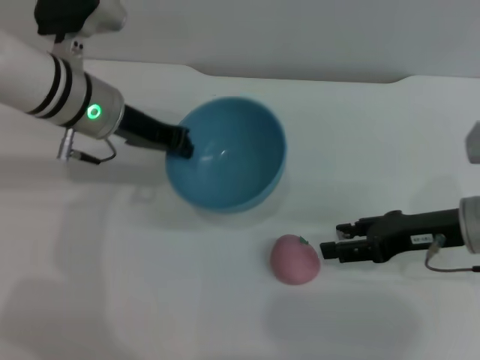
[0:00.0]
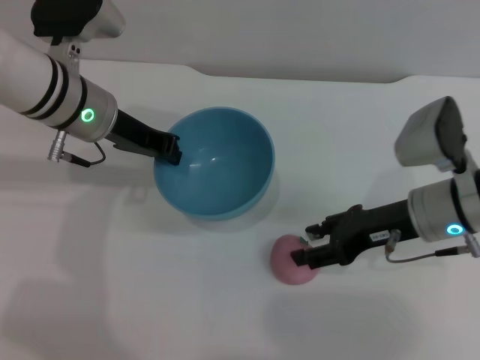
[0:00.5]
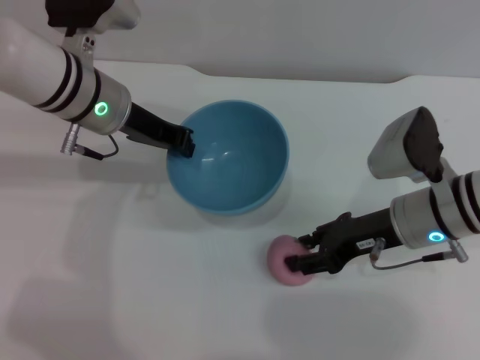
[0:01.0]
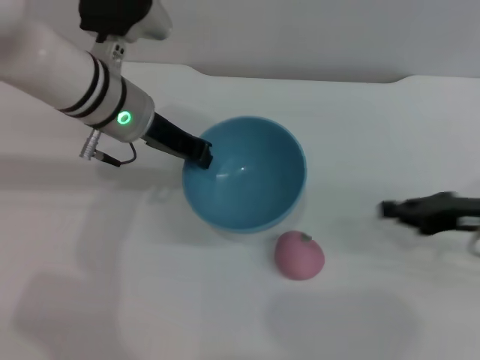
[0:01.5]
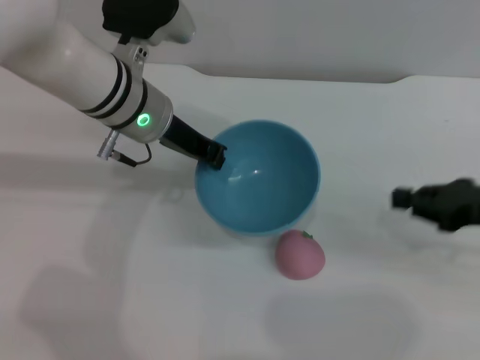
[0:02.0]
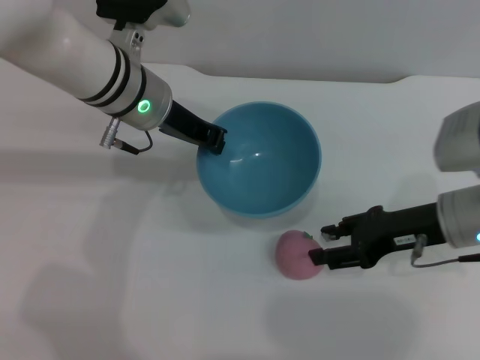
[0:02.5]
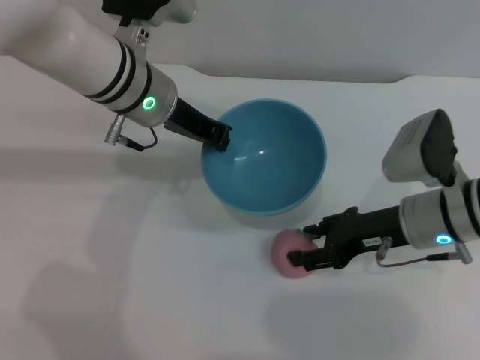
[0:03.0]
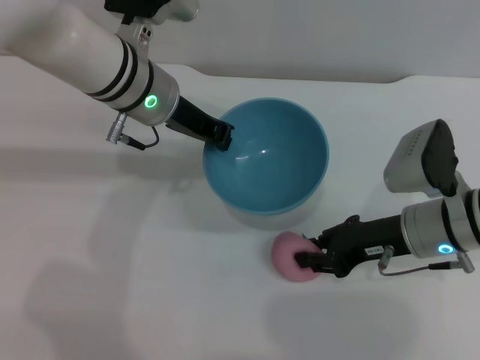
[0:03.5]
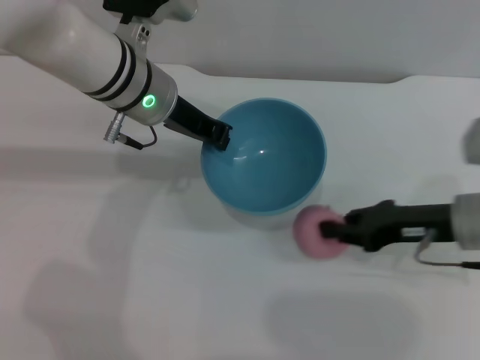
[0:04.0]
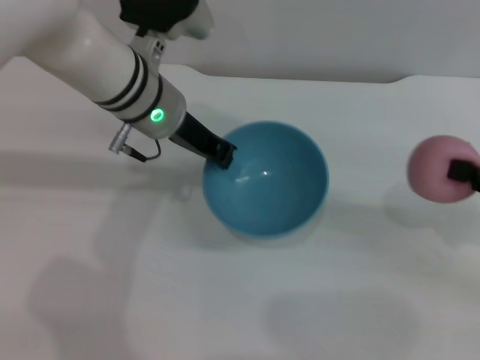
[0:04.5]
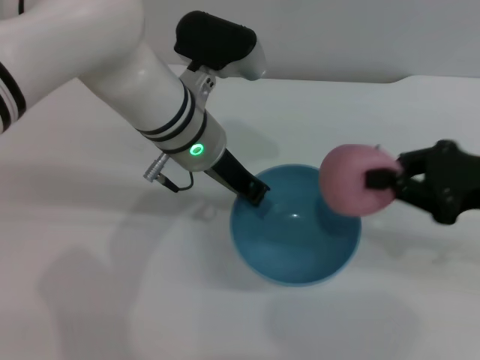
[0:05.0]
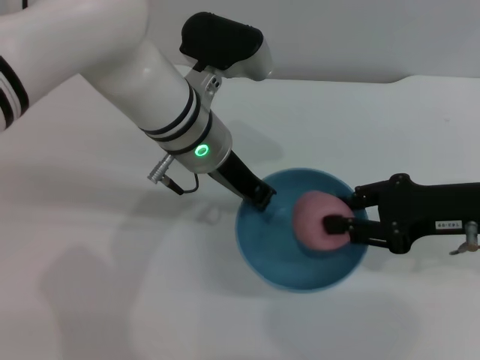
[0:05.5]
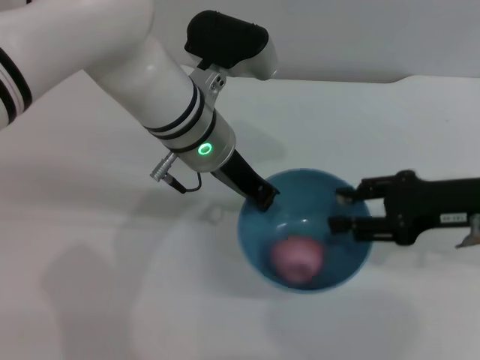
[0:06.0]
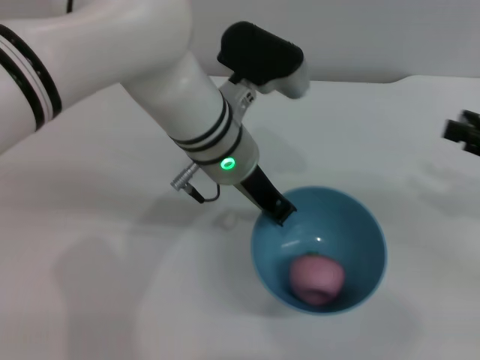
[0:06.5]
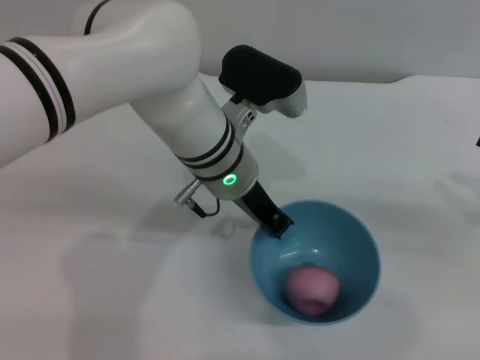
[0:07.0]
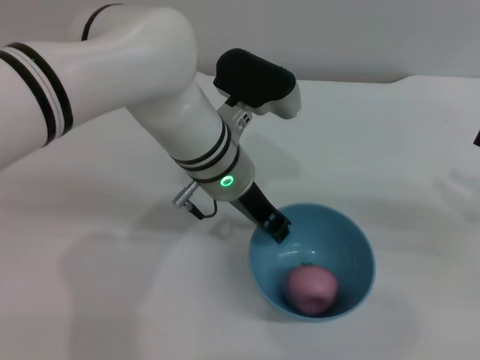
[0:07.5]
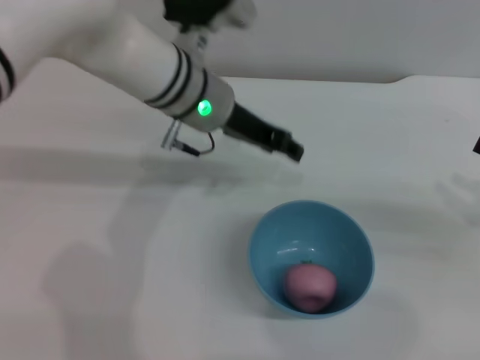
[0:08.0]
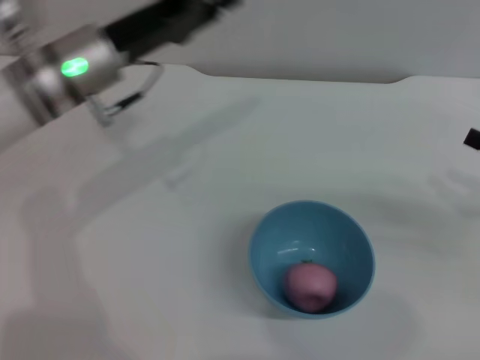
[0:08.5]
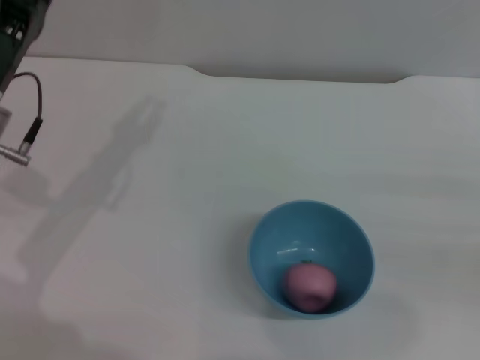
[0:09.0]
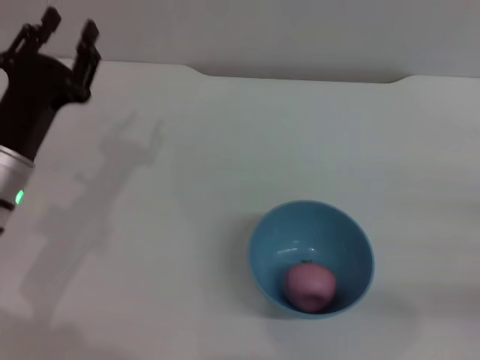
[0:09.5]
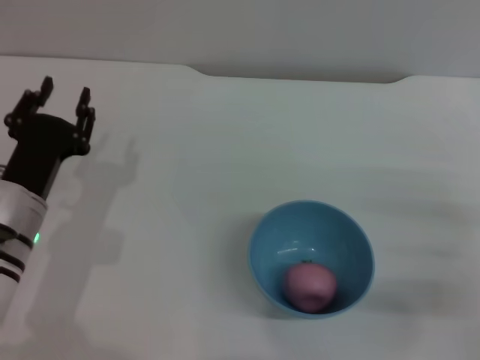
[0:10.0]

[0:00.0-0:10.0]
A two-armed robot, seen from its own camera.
Task of the whole recording: put the peach into the blue bowl and pour it out repeatedly.
Step, 0:00.0 to 0:04.0: Pick up the peach with the right gripper.
Step, 0:04.5 to 0:05.5: Place the peach into the bowl.
Step, 0:06.5 to 0:07.5: Place the bowl on the table.
0:00.0 to 0:02.0: Both grippers move to the right, about 5 cm. The right gripper closes its fingers.
0:02.0 to 0:04.0: The right gripper travels to the left by some 5 cm, and opens and closes again.
0:04.0 to 0:06.0: The right gripper moves upward, approximately 5 cm, goes to the right and returns, roughly 10 cm each way, and opens up, while the left gripper heads to the right, covering some 5 cm.
0:06.0 to 0:08.0: The right gripper is displaced to the right by approximately 10 cm. The left gripper opens.
0:08.0 to 0:10.0: The left gripper shifts about 25 cm to the left, backward and downward, while the right gripper travels downward and to the left by approximately 10 cm.

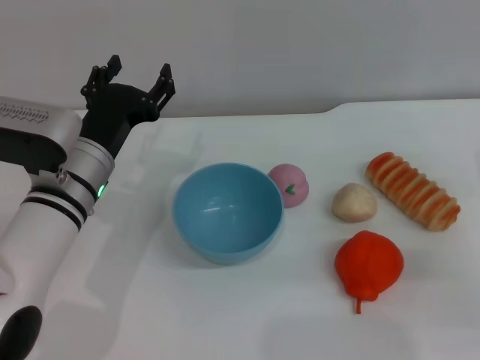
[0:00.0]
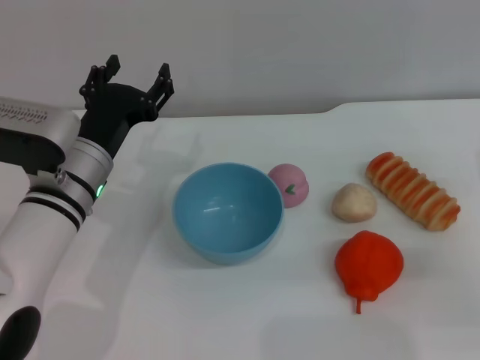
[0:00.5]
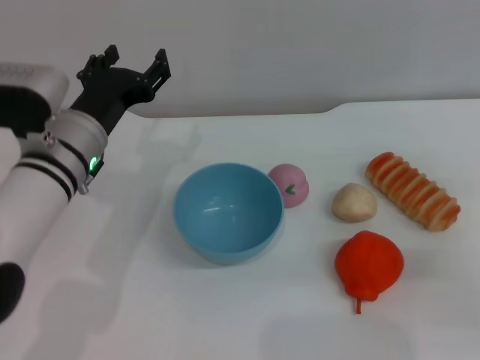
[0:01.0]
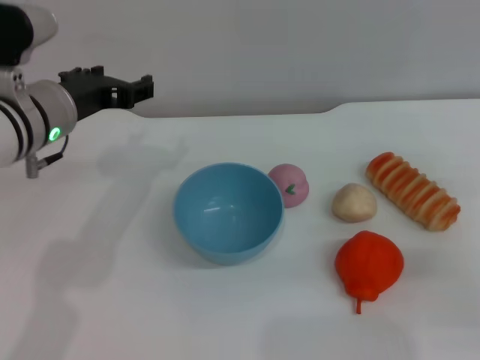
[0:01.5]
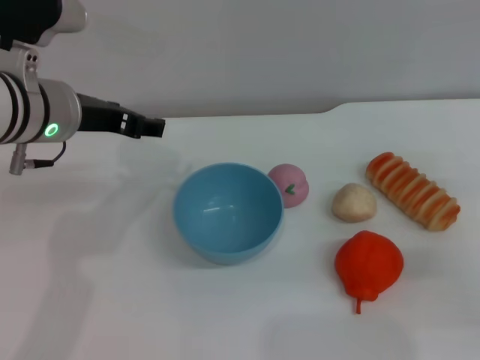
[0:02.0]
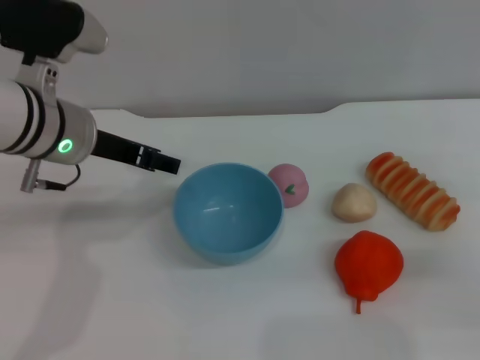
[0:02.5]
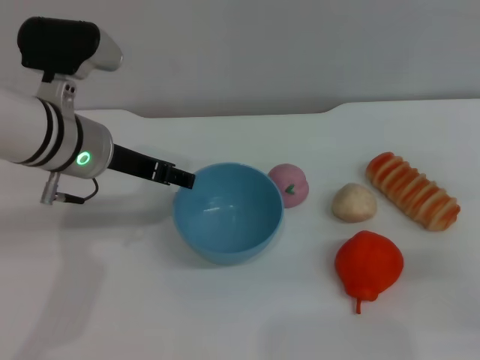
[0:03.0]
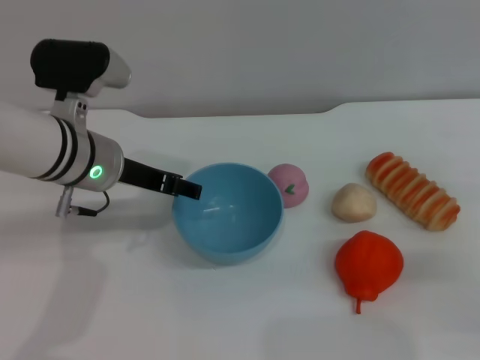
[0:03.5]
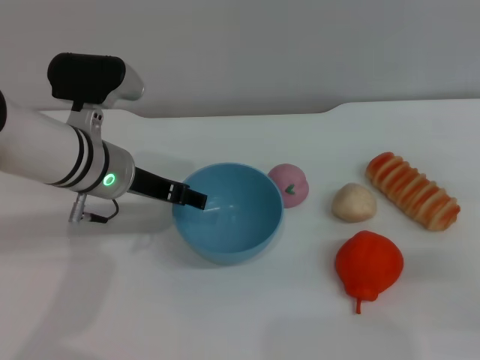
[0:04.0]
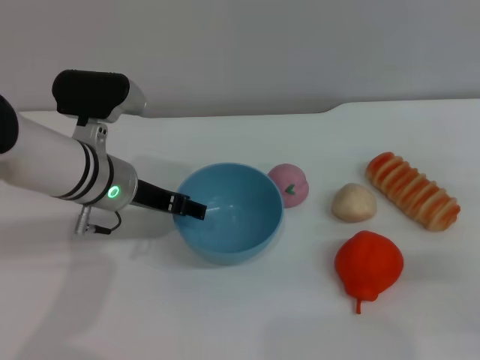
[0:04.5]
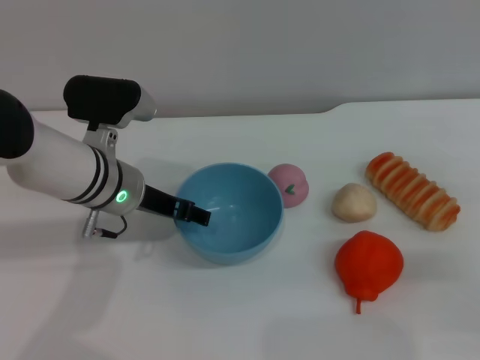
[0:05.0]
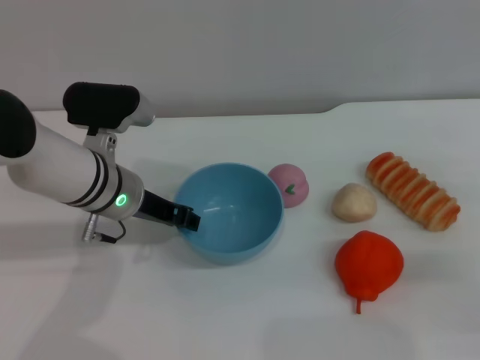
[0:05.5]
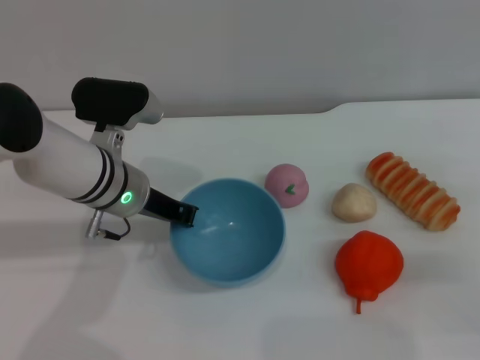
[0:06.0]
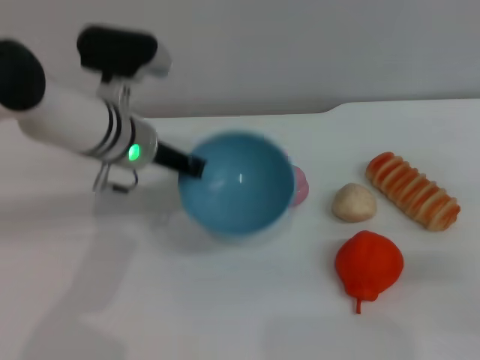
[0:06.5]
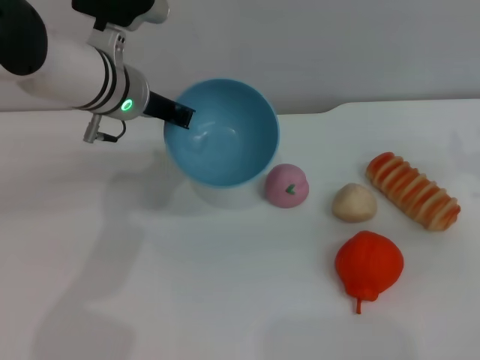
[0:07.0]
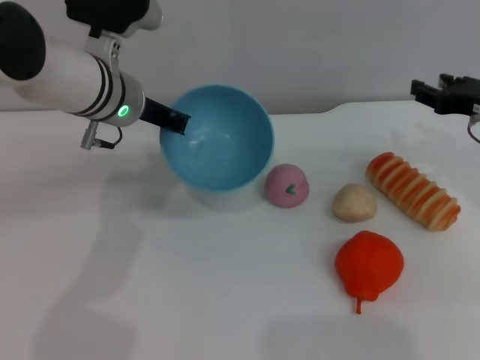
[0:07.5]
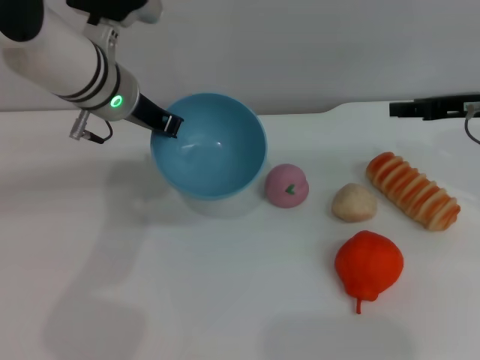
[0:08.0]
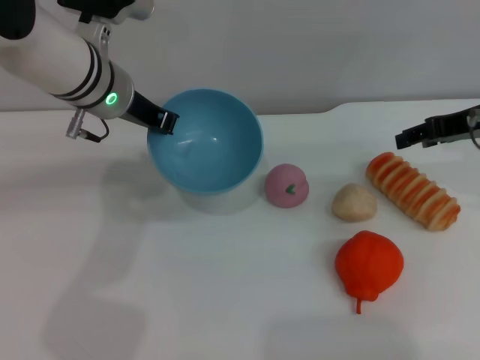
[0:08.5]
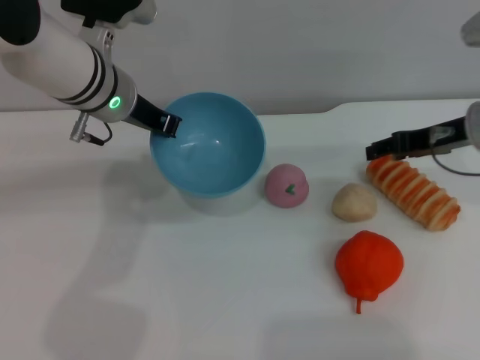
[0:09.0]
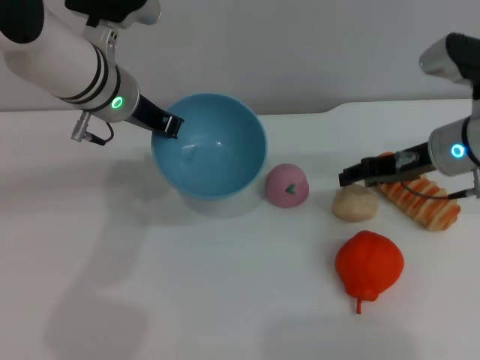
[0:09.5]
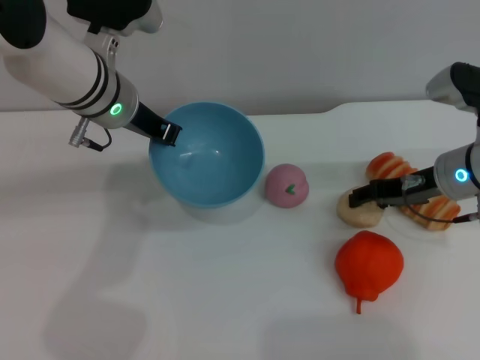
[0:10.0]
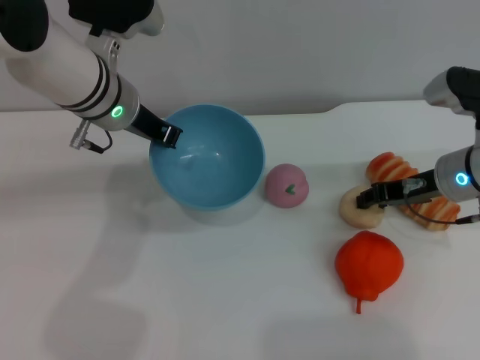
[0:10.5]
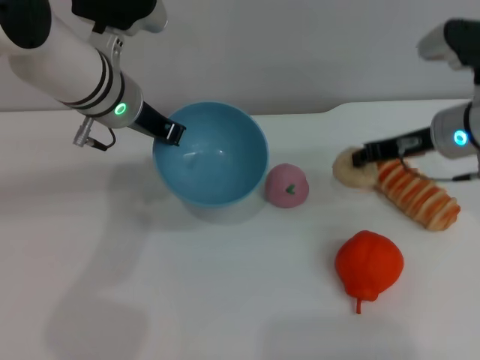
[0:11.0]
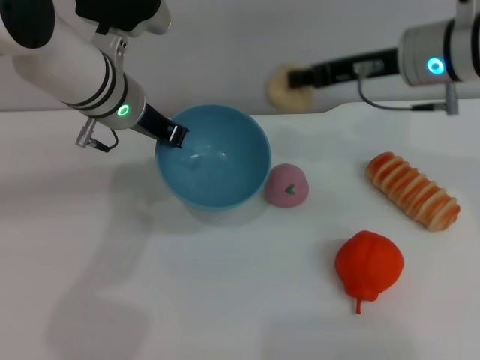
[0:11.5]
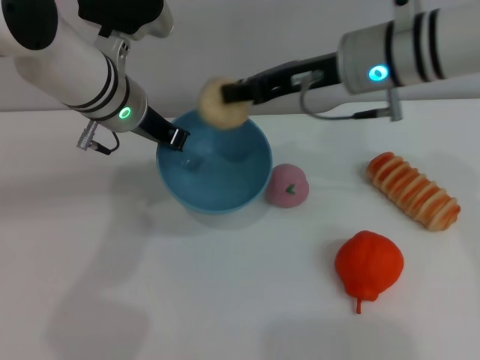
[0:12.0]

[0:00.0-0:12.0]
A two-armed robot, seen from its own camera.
Task of the whole recording: put the egg yolk pastry into the blue bowl and pour it out repeatedly.
Step, 0:00.0 to 0:07.5: Pick up the bowl with the left gripper.
Step, 0:08.0 to 0:11.5: Pick up the egg yolk pastry with the right gripper.
0:00.0 to 0:02.0: The left gripper heads upward, covering some 10 cm.
0:02.0 to 0:04.0: The left gripper shifts about 5 cm downward.
0:04.0 to 0:06.0: The left gripper closes.
0:06.0 to 0:08.0: The right gripper shifts roughly 15 cm forward, upward and to the left. Meanwhile the left gripper heads upward and forward, covering some 10 cm.
0:08.0 to 0:10.0: The right gripper goes approximately 10 cm downward and to the left.
0:10.0 to 0:12.0: The right gripper is displaced upward and to the left by some 15 cm, and closes up.

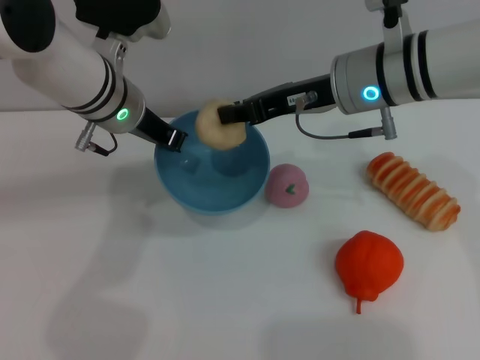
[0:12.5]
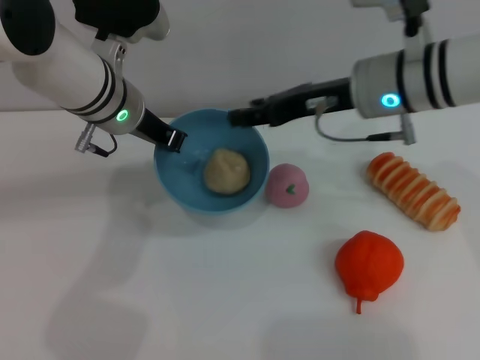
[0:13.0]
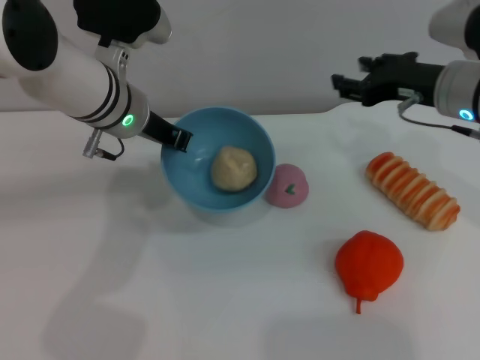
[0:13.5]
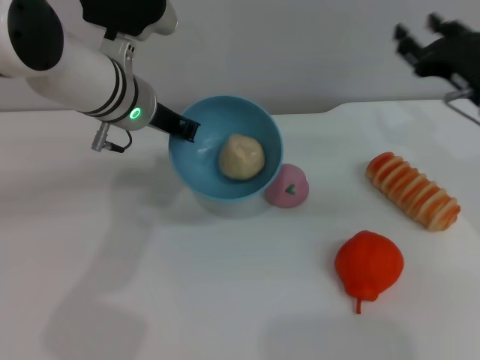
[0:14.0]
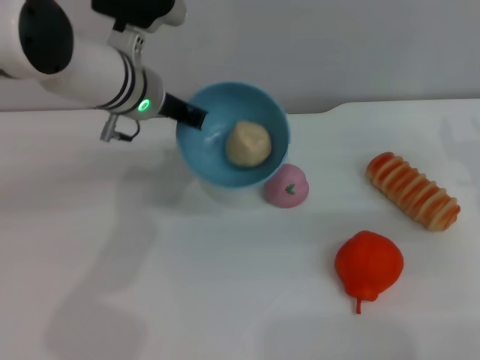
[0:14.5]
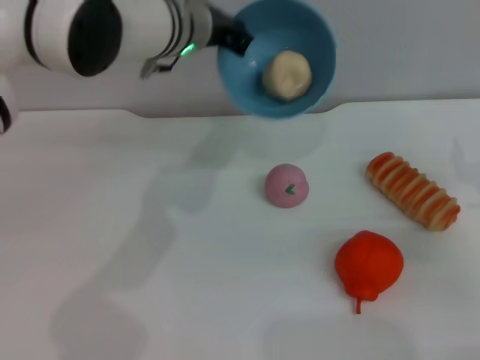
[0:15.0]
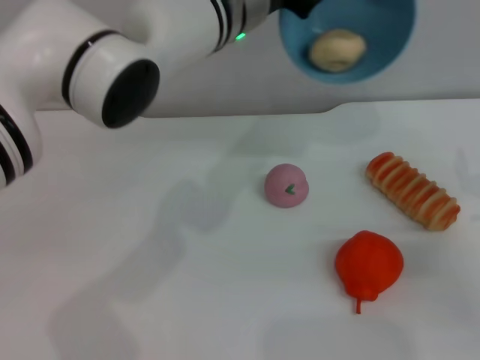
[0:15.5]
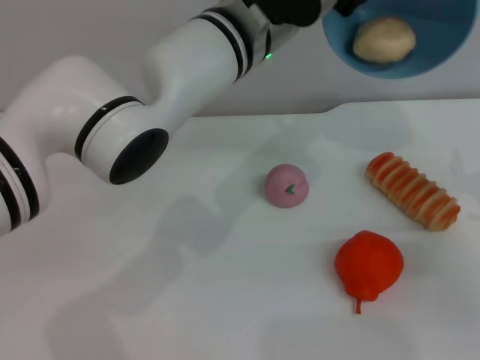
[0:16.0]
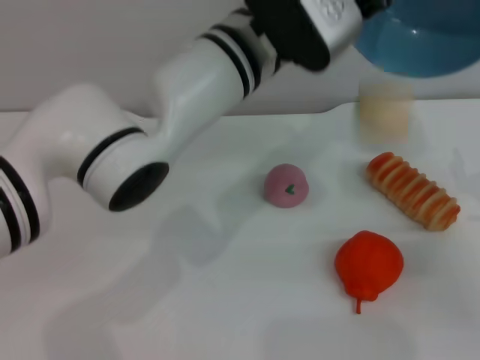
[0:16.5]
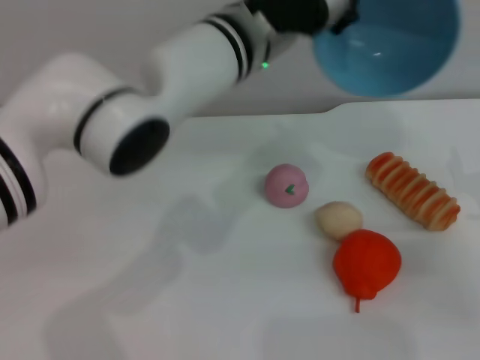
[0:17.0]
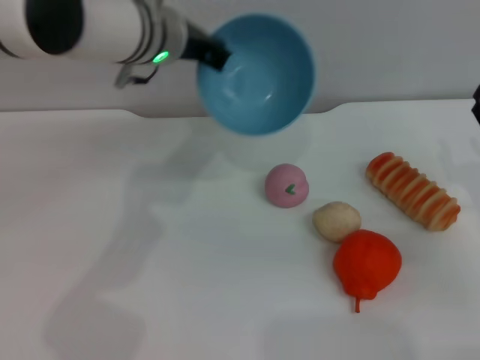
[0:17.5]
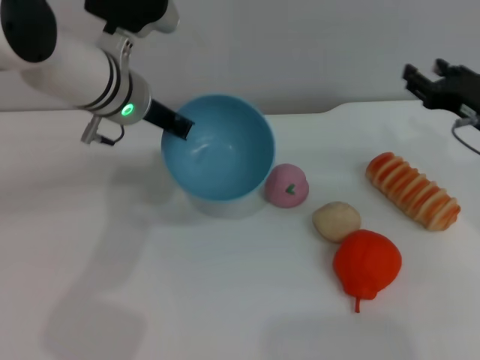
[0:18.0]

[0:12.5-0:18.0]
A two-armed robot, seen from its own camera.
Task of the whole recording: put the egg yolk pastry into the blue bowl and pour it out repeatedly.
Step, 0:12.5 to 0:13.5: Place the egg yolk pastry into the bowl.
Step, 0:14.0 to 0:16.5: Pour the egg yolk pastry out of bowl.
0:12.5 to 0:14.5: The right gripper travels to the right and downward by roughly 20 cm, and opens its fingers.
0:14.5 to 0:16.0: The left gripper is displaced to the right by approximately 10 cm. Meanwhile the right gripper changes place by approximately 5 cm.
0:16.0 to 0:18.0: The right gripper moves forward and upward, approximately 10 cm, while the left gripper goes approximately 10 cm to the left.
